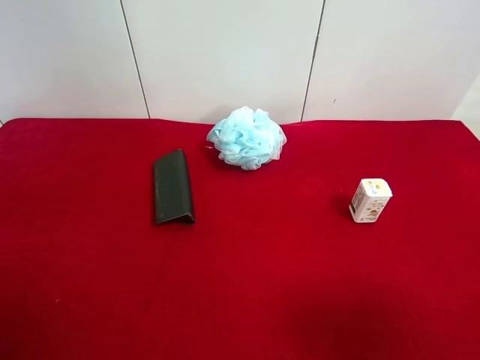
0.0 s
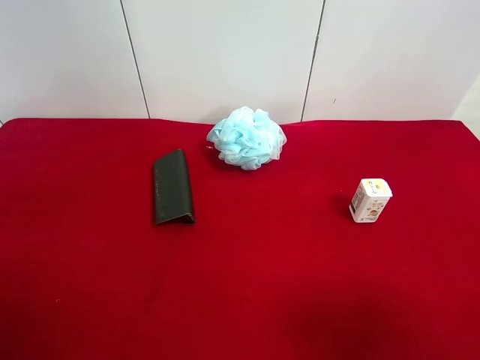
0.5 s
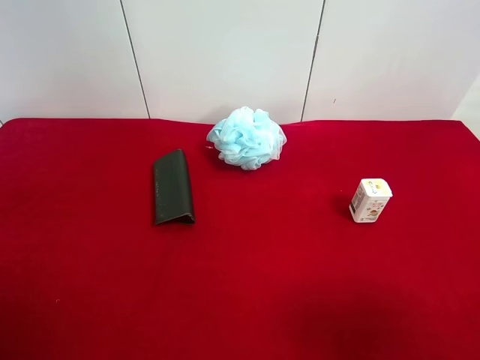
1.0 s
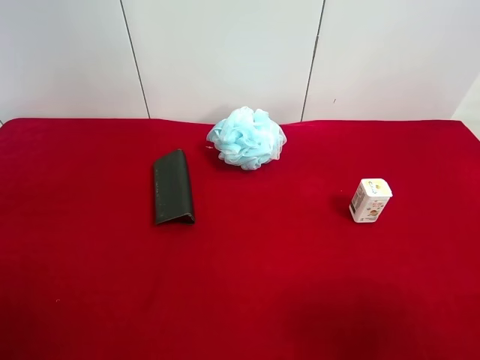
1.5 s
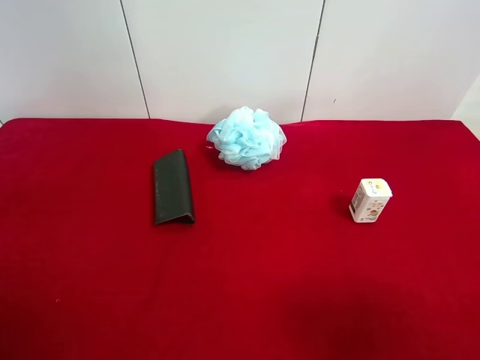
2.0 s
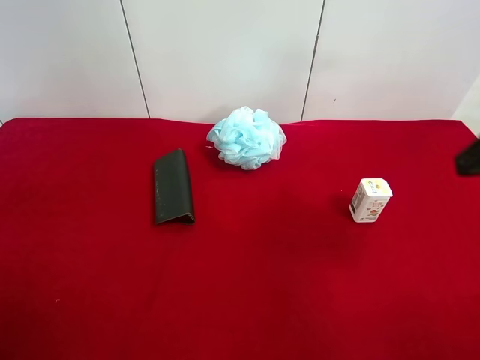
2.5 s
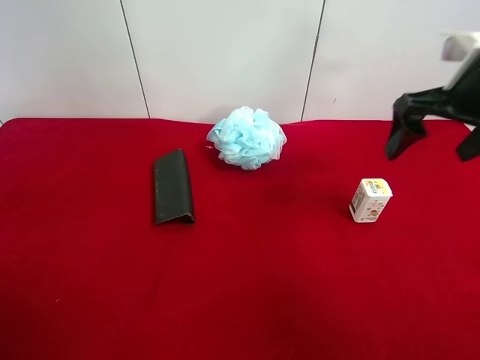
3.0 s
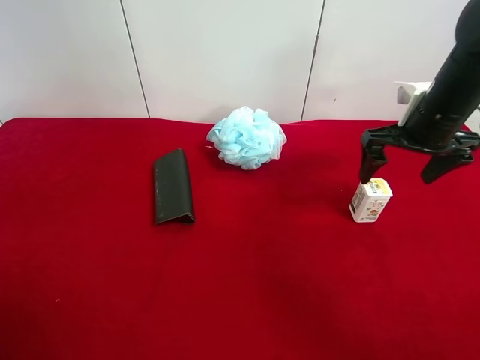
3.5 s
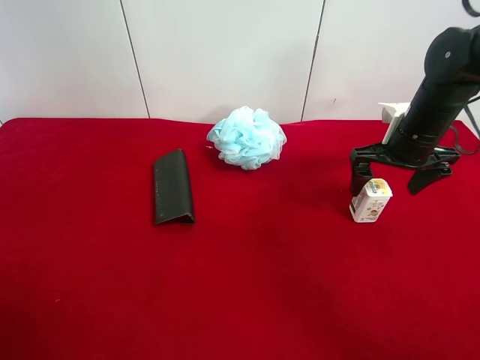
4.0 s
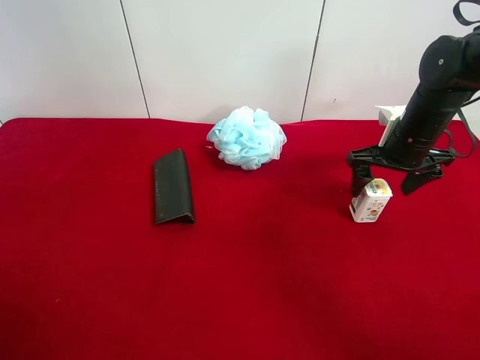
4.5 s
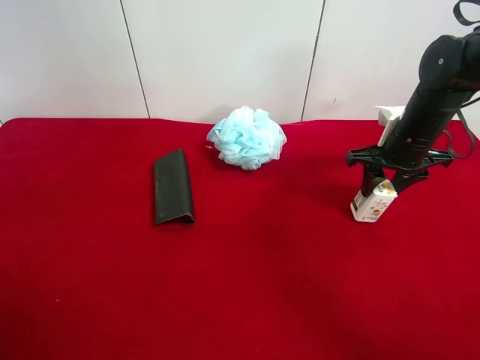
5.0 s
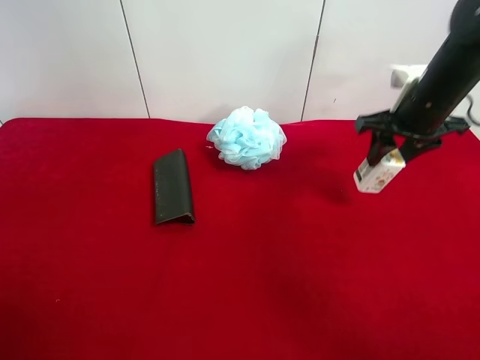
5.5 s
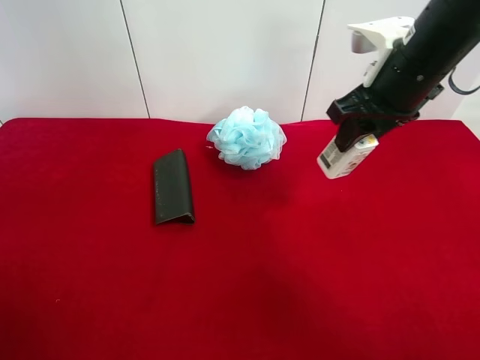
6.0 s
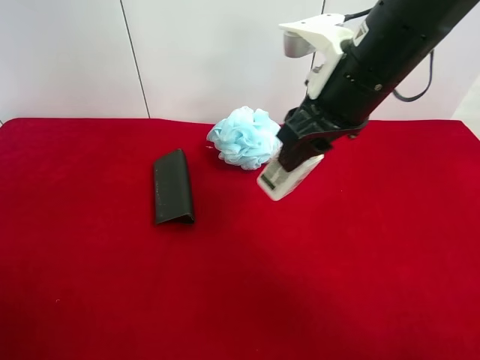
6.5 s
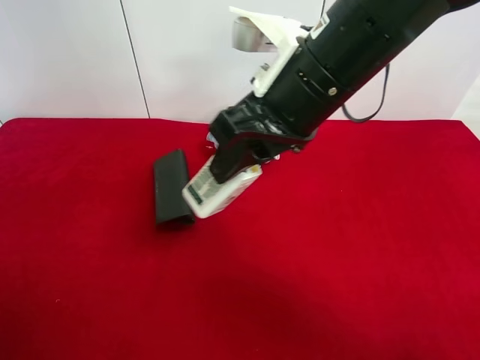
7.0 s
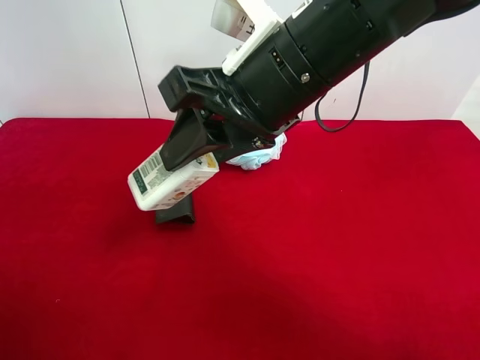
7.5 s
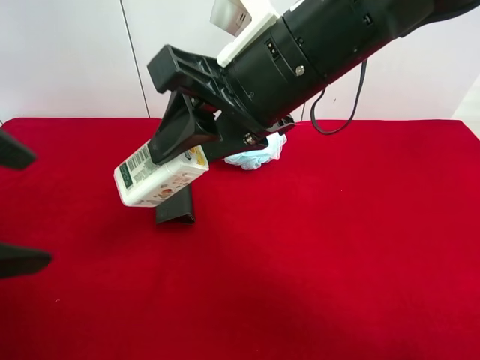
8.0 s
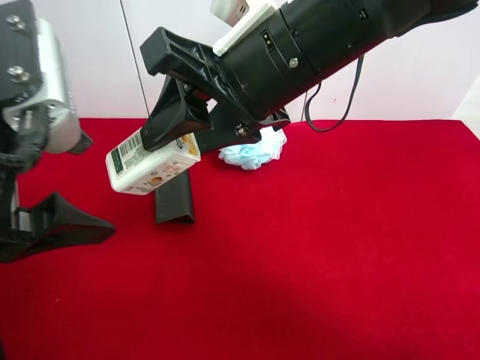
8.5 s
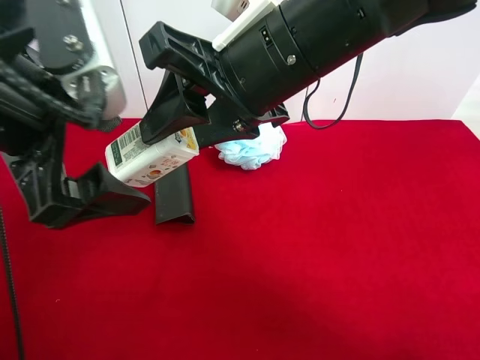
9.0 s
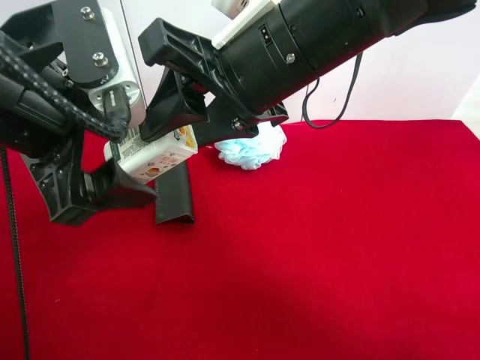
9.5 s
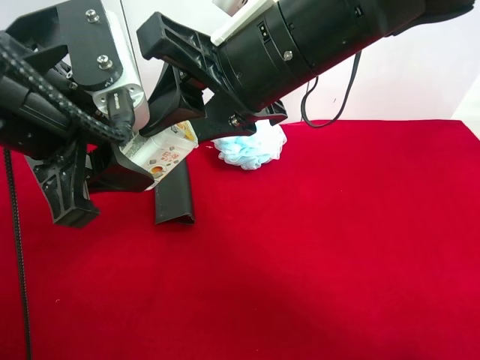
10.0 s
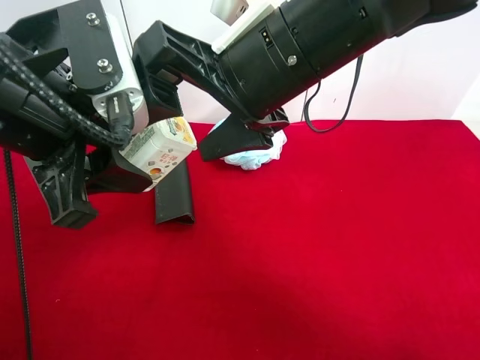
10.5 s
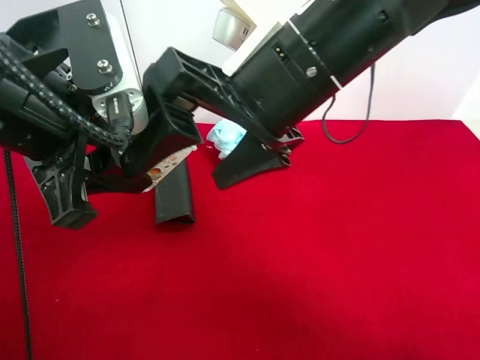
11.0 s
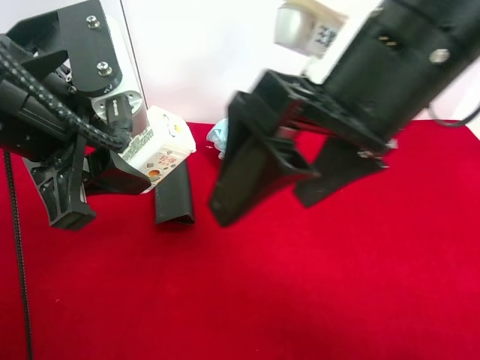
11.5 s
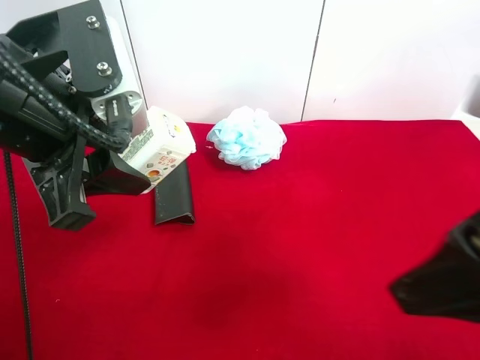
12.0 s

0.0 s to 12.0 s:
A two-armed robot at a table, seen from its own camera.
Task of the whole recording: use the right gripper to pick up the item and transfer it from the right gripper to the left gripper.
Step, 0.0 to 4.5 s: Use the right gripper to grab the square chewing gum on the right side of the table.
Step, 5.0 to 10.0 s: Pass the square chewing gum to the left gripper.
2.0 to 4.0 s: The right gripper travels forward by roughly 35 cm.
4.0 to 6.0 s: The right gripper goes roughly 15 cm upward and to the left, and closes.
6.0 to 8.0 s: The left gripper heads forward and to the right, covering approximately 15 cm, while the right gripper heads to the left and backward, covering about 15 cm.
8.0 to 10.0 s: The left gripper moves to the right and forward, about 10 cm, and closes its fingers.
10.0 to 12.0 s: The right gripper shifts roughly 20 cm to the right and backward, and opens its fingers.

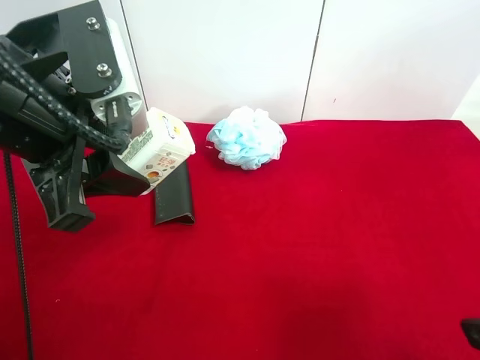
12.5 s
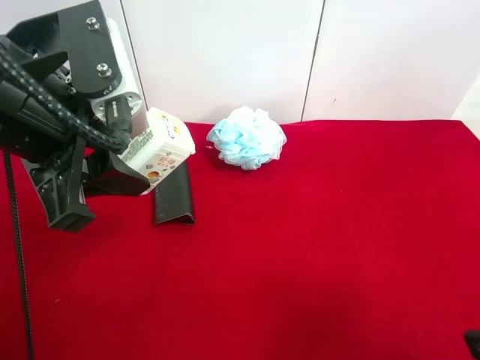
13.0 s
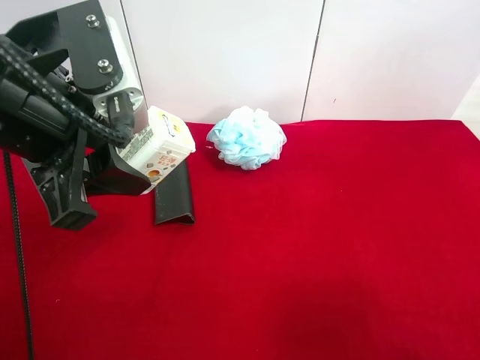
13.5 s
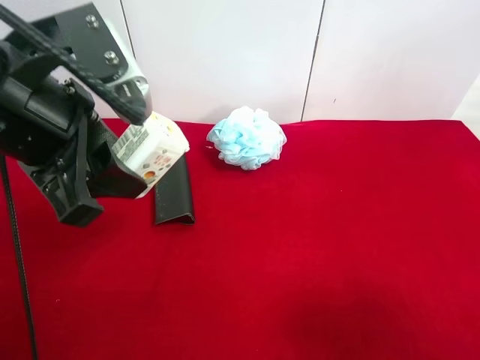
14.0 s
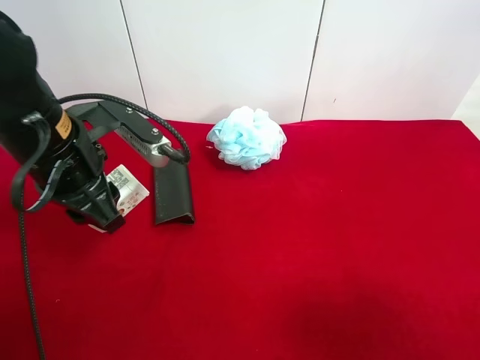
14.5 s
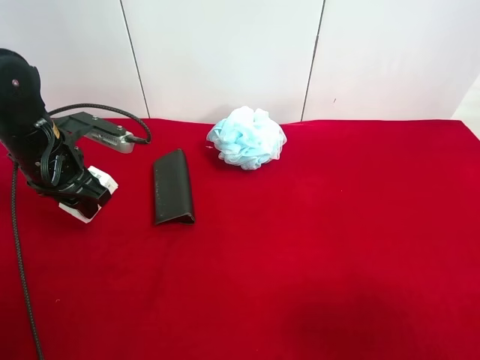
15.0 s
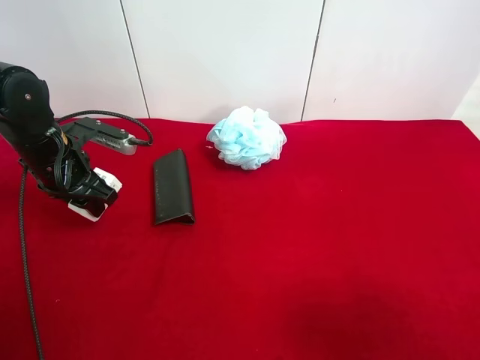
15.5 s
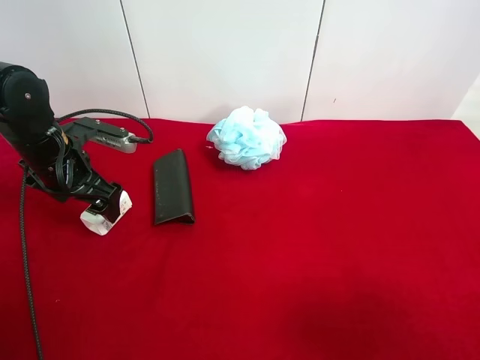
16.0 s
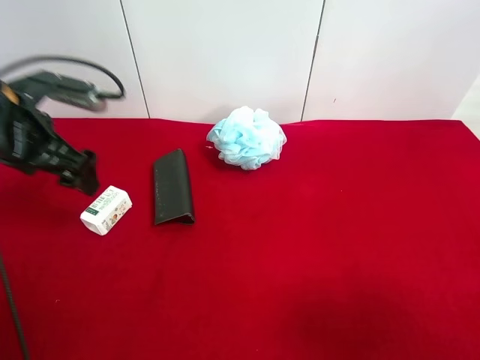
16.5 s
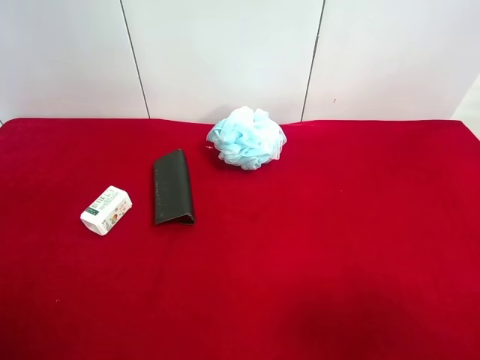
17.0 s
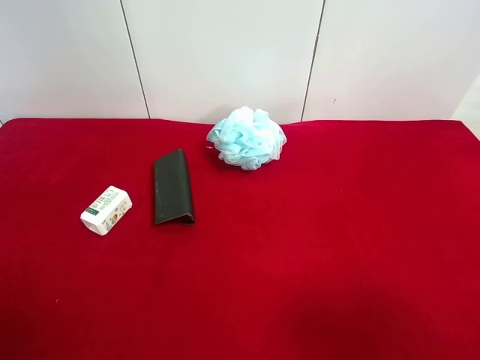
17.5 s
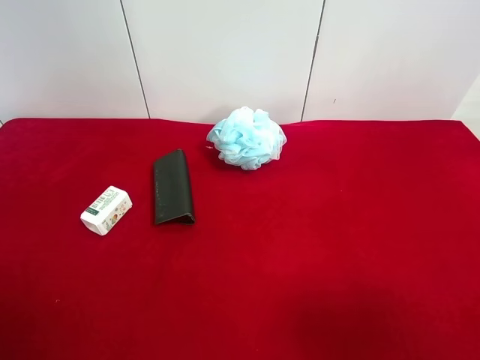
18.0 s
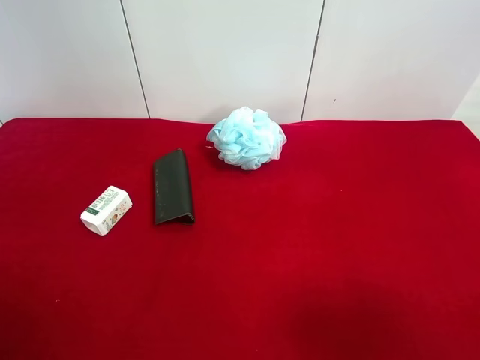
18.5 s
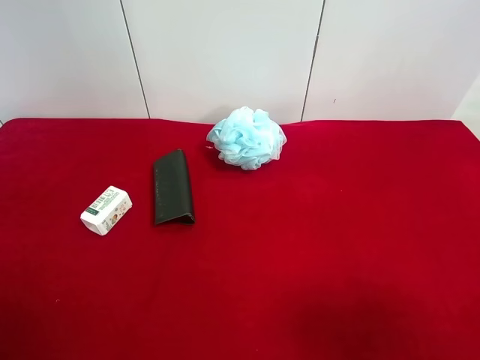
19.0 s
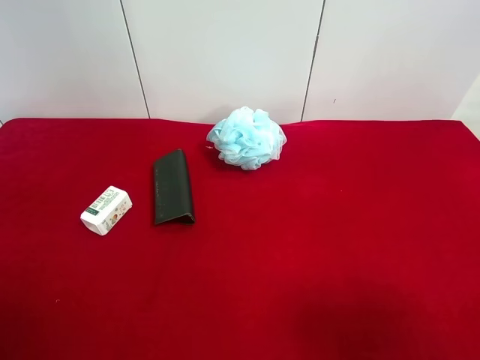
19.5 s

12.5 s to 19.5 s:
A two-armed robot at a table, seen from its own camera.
Task of the whole recording: use the right gripper to pick up the item and transfer it from the right gripper to the left gripper.
Step, 12.5 to 16.0 s: The left gripper places square chewing gum on the left side of the table.
12.5 to 14.5 s: The left gripper shifts about 10 cm downward and forward.
14.5 to 16.0 s: The left gripper travels forward, to the left and downward by approximately 15 cm, and opens its fingers.
16.0 to 17.5 s: The left gripper goes some 35 cm backward and upward.

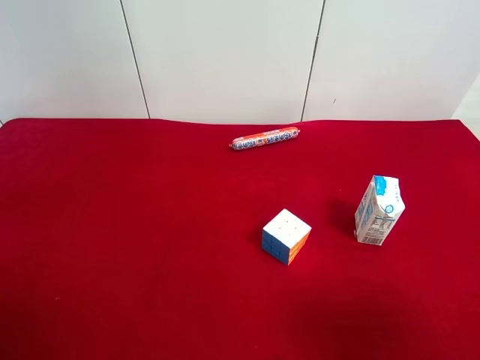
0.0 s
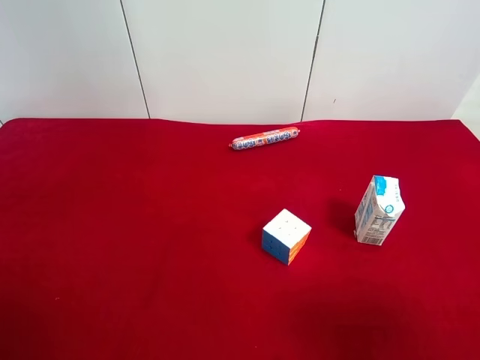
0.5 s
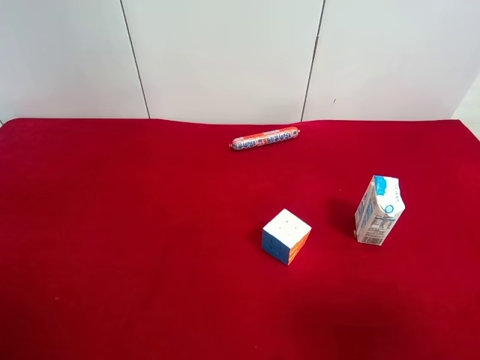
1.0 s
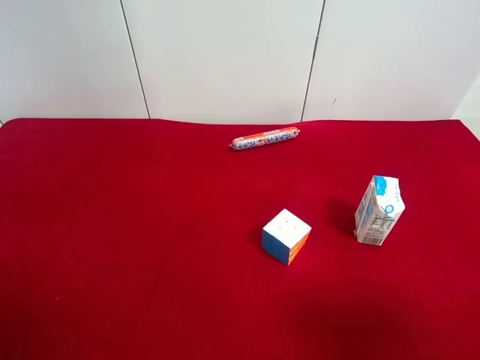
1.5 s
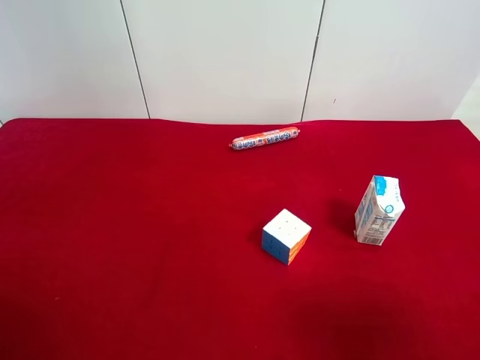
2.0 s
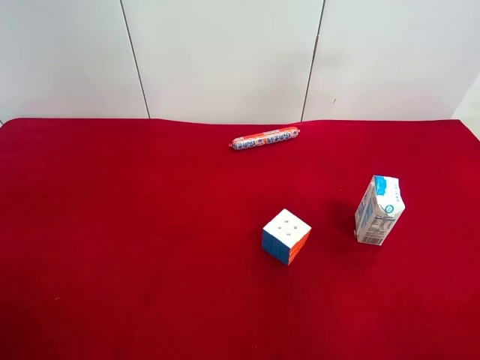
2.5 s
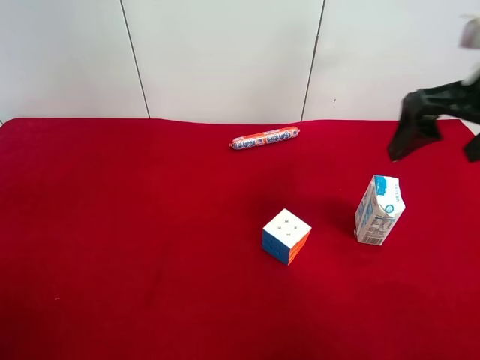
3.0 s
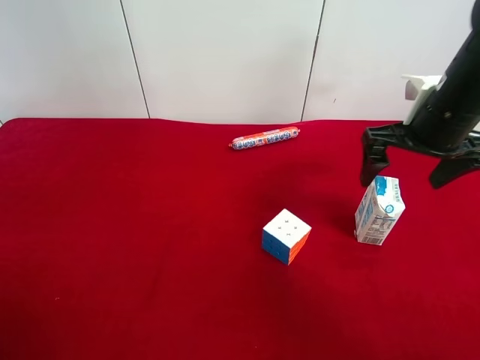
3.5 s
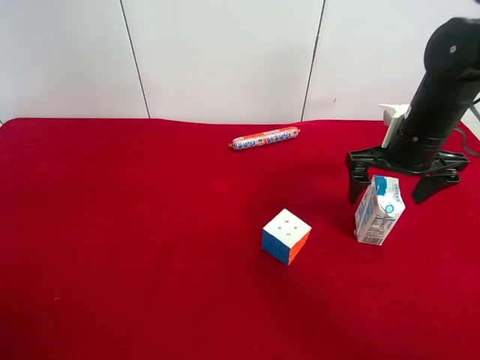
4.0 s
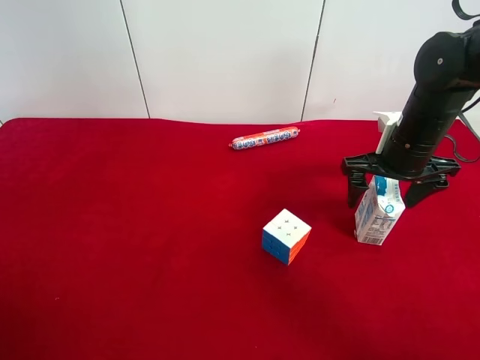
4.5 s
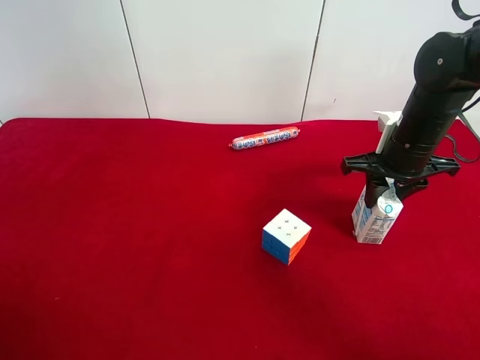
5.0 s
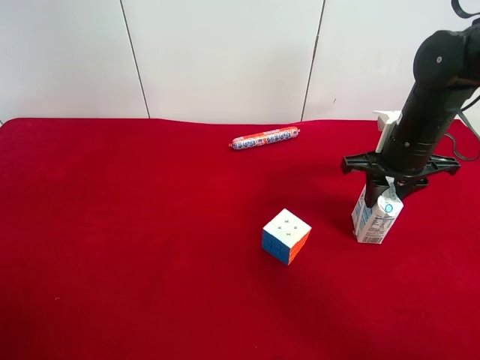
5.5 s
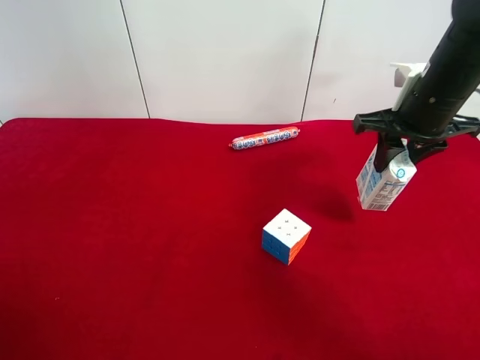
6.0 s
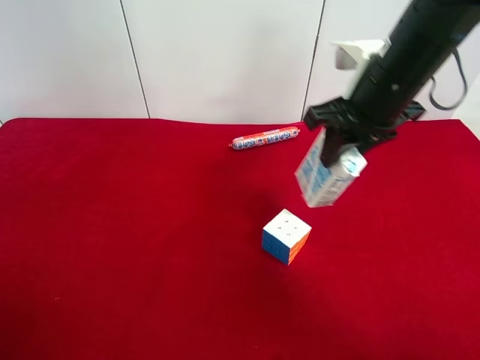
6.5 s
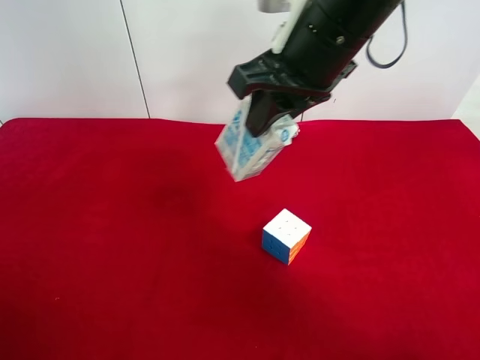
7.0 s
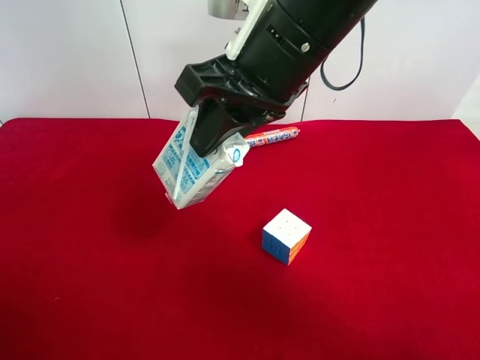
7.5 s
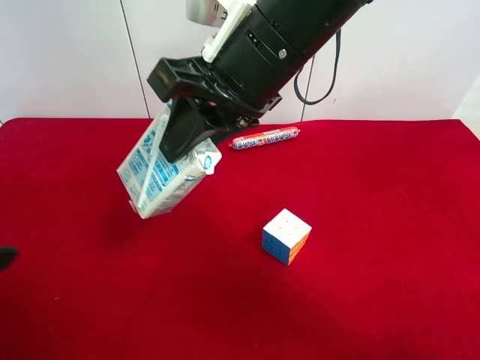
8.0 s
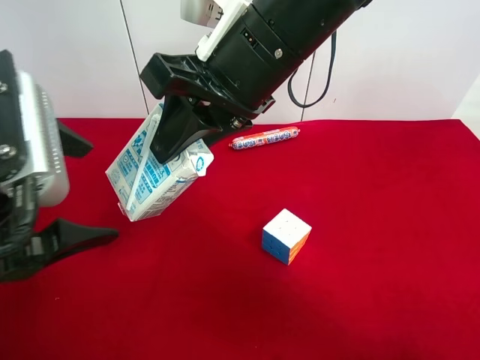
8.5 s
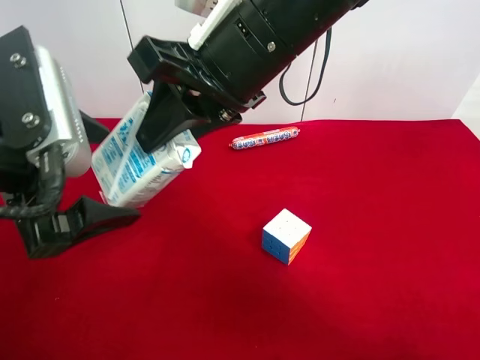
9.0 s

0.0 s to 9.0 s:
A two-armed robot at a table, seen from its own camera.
Task of the whole recording: use the right gripper to pick up the item and transfer it from the right gripper to the left gripper.
Step, 0.0 to 4.5 s: Use the right gripper to grab the milk on the right side of the table.
0.0 to 2.0 s: Both grippers stay put.
2.0 to 4.5 s: The right gripper heads forward, covering some 30 cm.
4.5 to 7.0 s: The right gripper shifts approximately 20 cm to the left and upward, and closes its fingers.
7.0 to 9.0 s: The left gripper travels forward and to the right by about 20 cm, while the right gripper moves to the left, approximately 5 cm.
